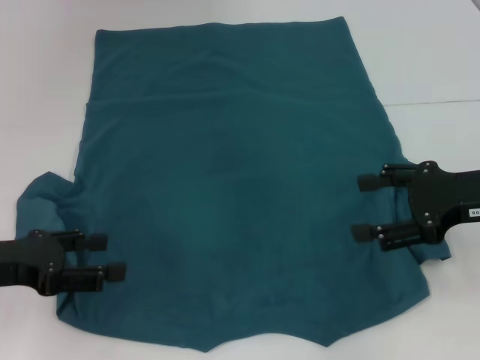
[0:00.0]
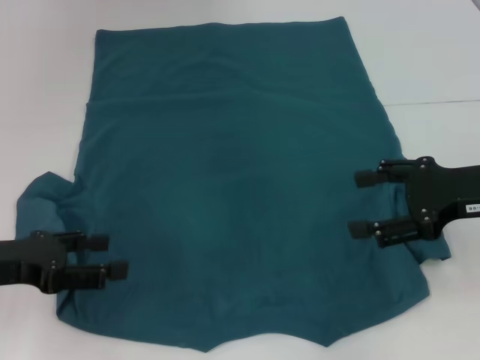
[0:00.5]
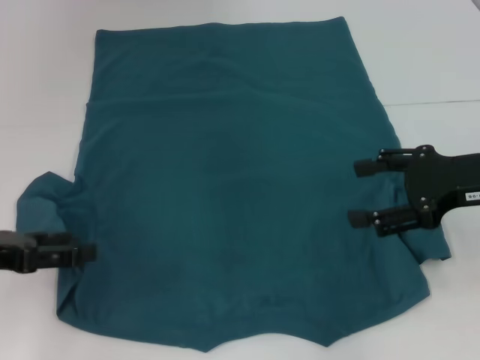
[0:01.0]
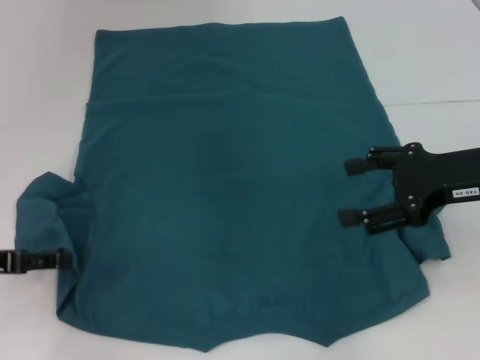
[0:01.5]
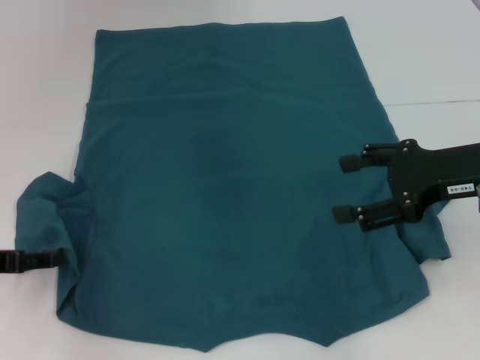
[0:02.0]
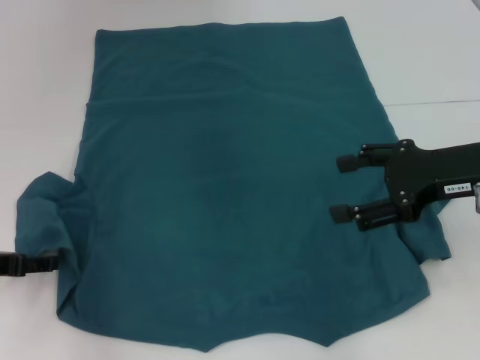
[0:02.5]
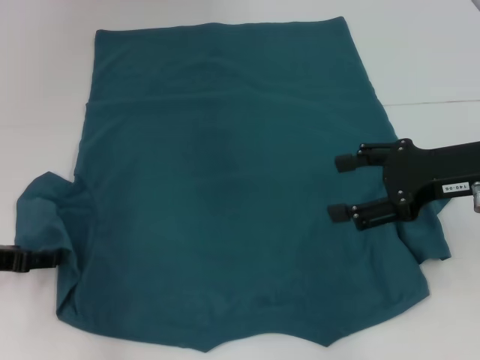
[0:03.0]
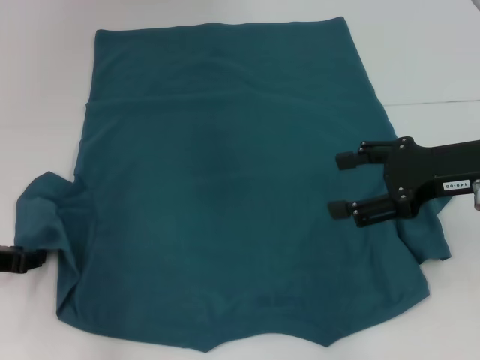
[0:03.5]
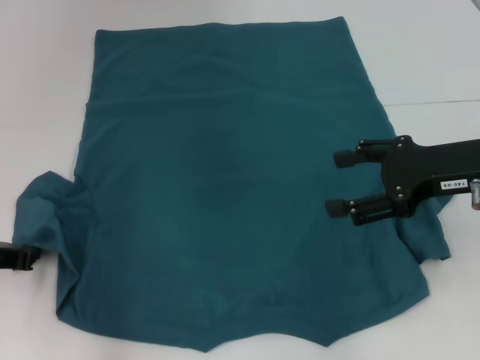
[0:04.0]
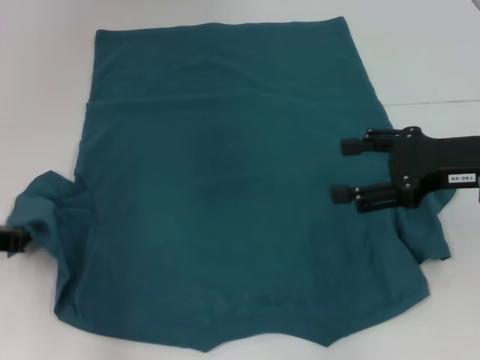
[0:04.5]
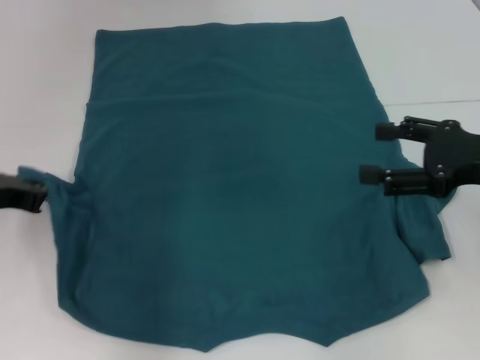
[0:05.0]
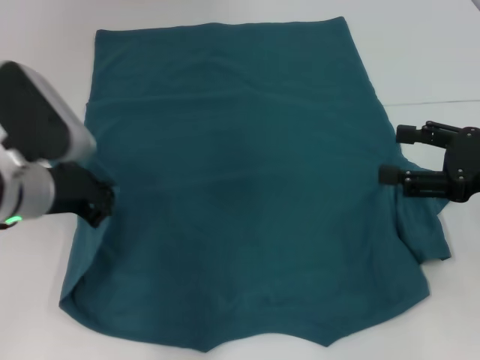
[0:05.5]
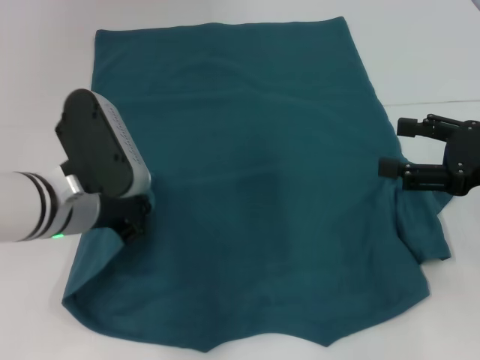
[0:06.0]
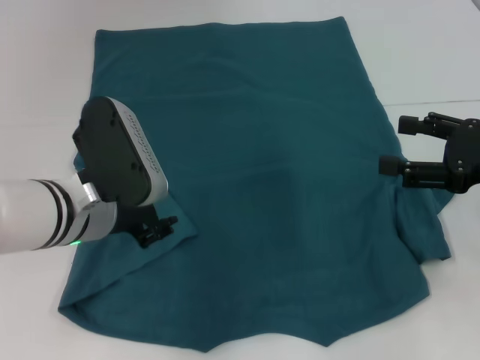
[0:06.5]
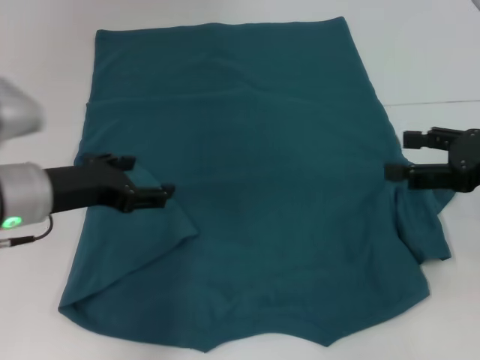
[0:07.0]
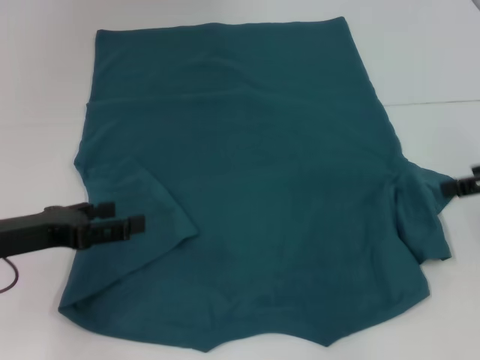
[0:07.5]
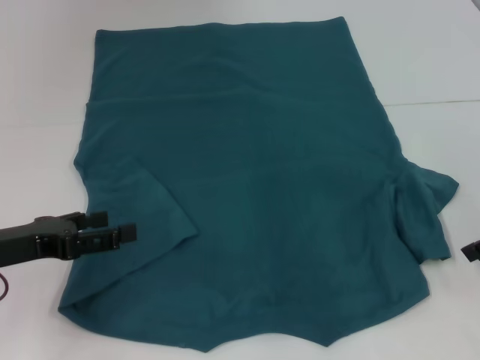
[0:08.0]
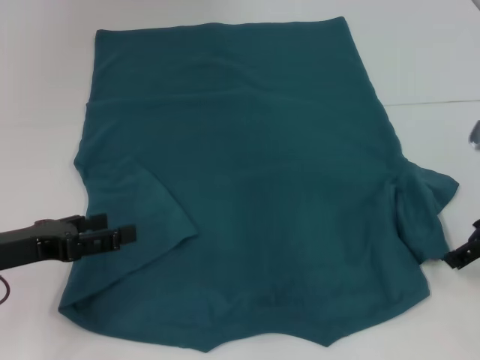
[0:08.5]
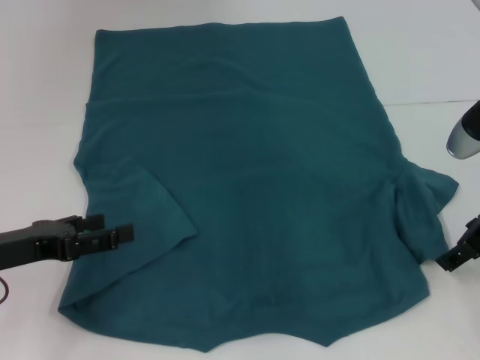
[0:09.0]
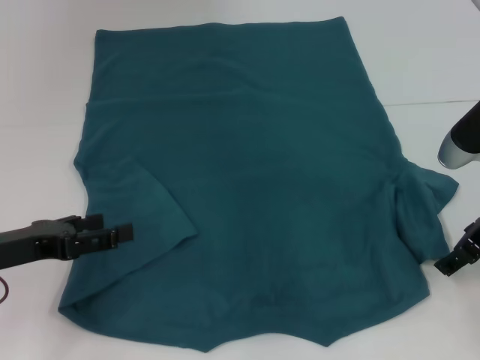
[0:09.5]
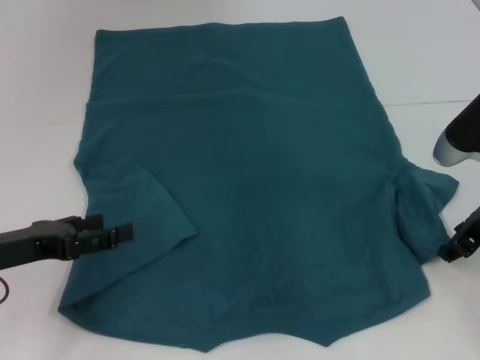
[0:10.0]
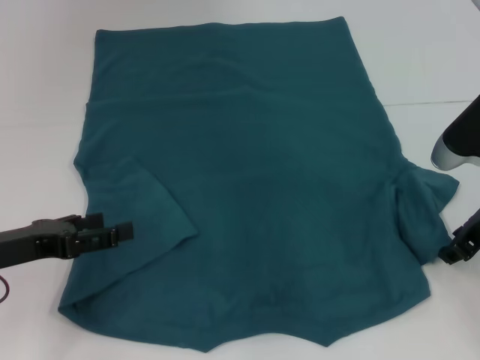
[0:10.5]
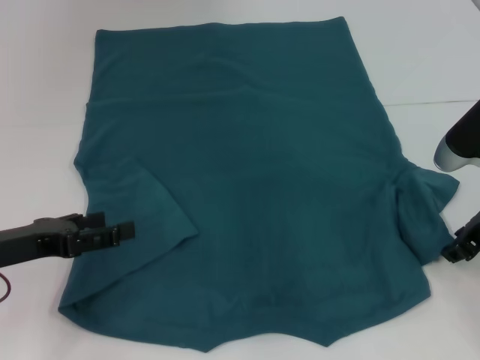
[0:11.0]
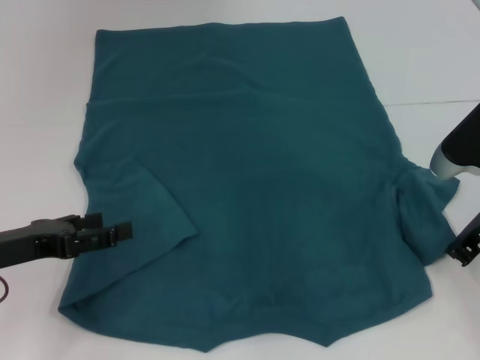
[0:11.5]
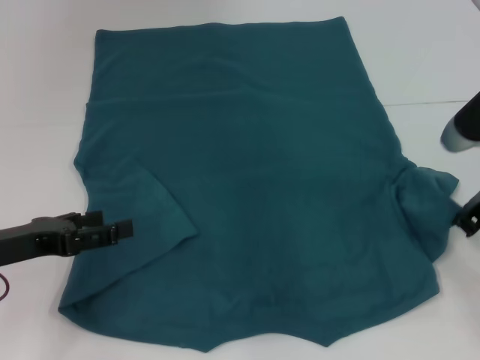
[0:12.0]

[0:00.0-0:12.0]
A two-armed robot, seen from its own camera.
Step, 0:00.0 to 0:06.5: Fold the bottom left sleeve with your left hand.
0:02.0 to 0:04.0: The left gripper closes.
0:04.0 to 0:06.0: The right gripper moves to the right, about 5 cm; the left gripper shifts roughly 15 cm to the right.
0:06.0 to 0:08.0: The left gripper goes about 15 cm to the left, and opens.
0:08.0 to 0:10.0: The right gripper is displaced to the left by about 5 cm.
0:10.0 to 0:12.0: The right gripper closes its fingers.

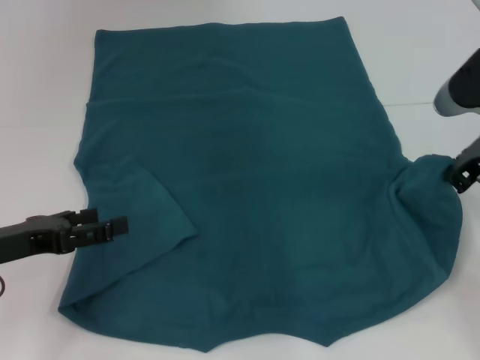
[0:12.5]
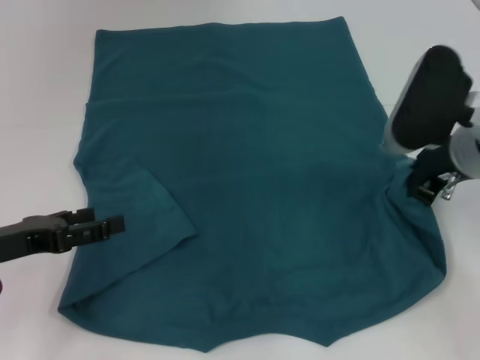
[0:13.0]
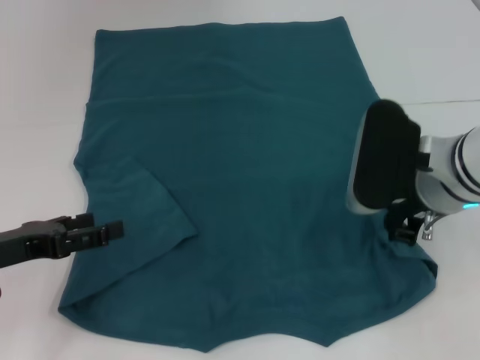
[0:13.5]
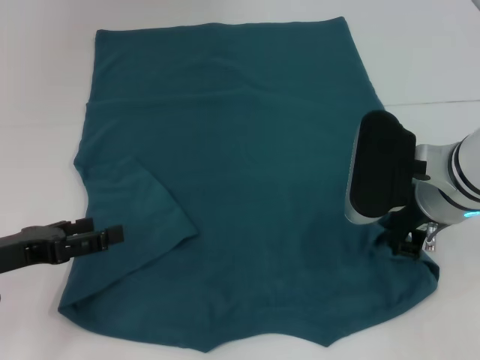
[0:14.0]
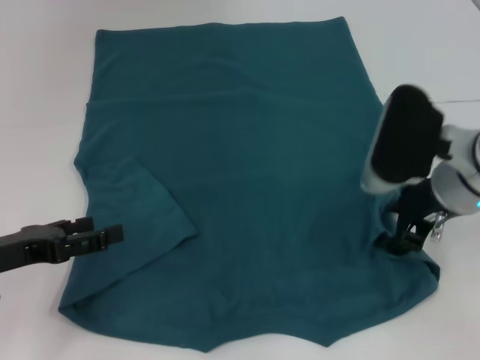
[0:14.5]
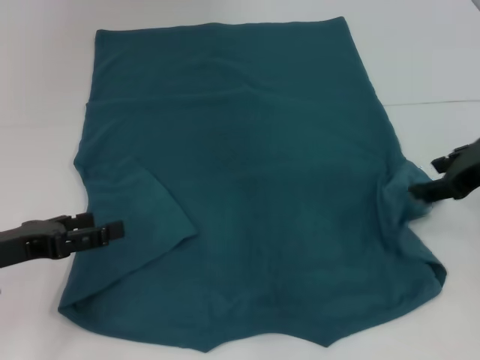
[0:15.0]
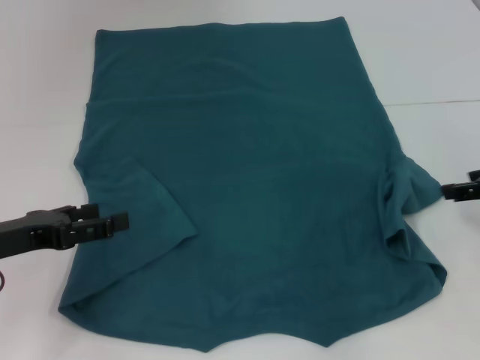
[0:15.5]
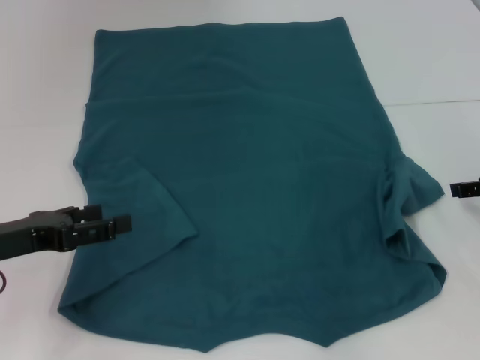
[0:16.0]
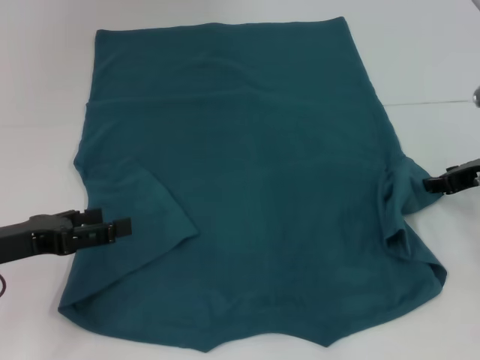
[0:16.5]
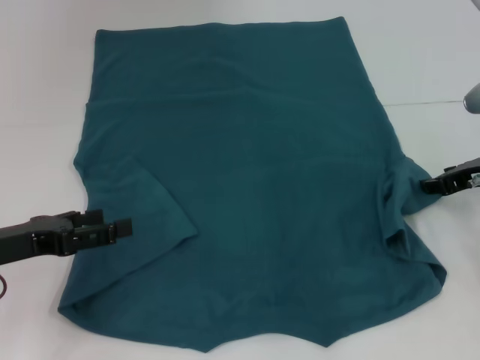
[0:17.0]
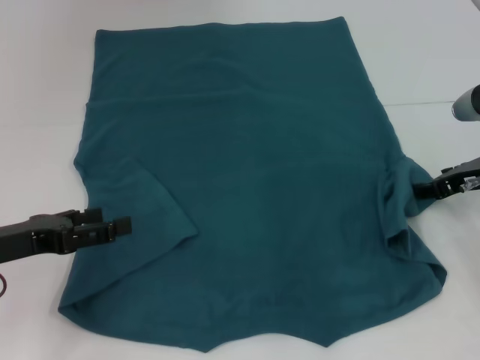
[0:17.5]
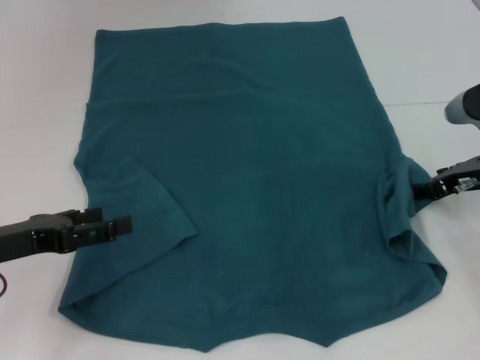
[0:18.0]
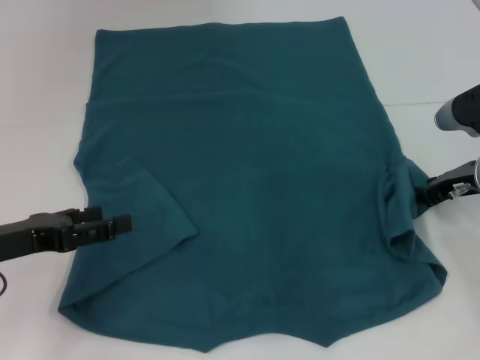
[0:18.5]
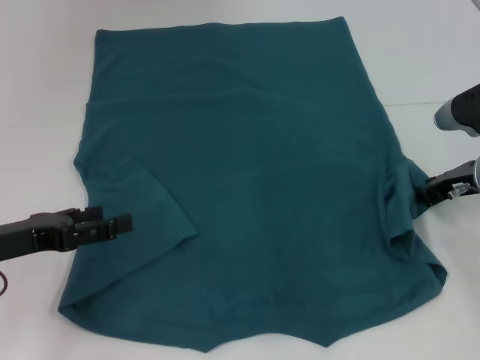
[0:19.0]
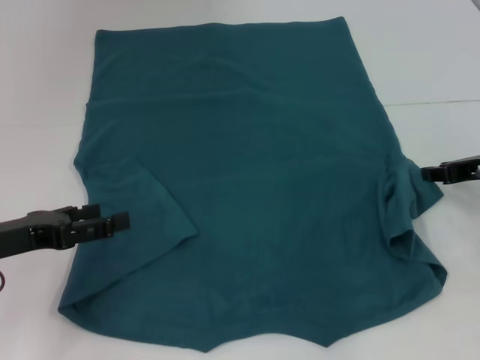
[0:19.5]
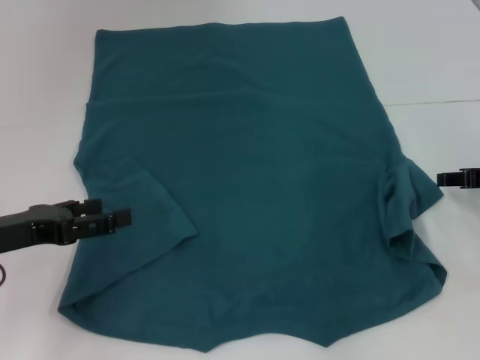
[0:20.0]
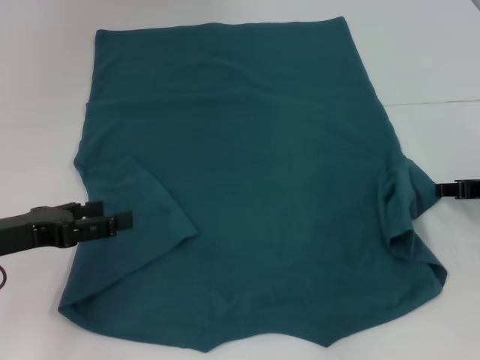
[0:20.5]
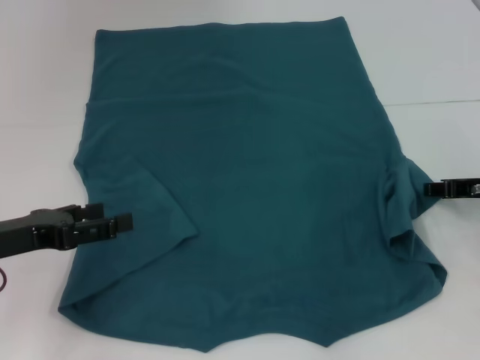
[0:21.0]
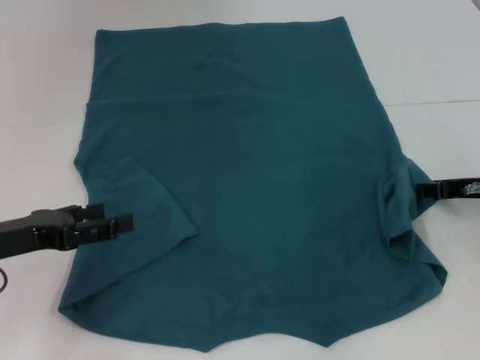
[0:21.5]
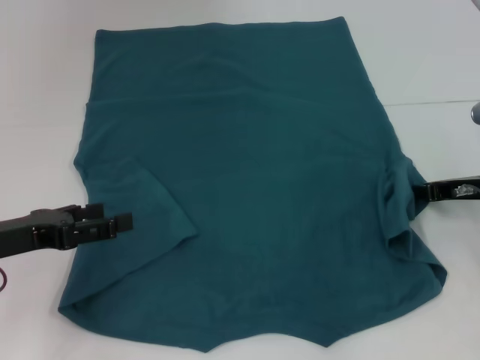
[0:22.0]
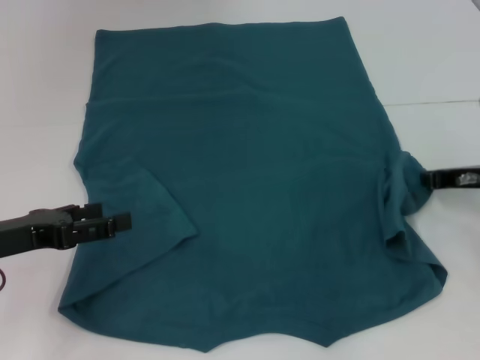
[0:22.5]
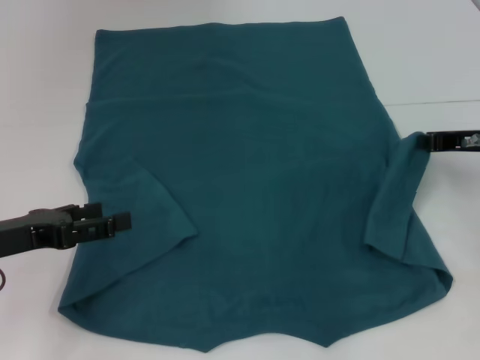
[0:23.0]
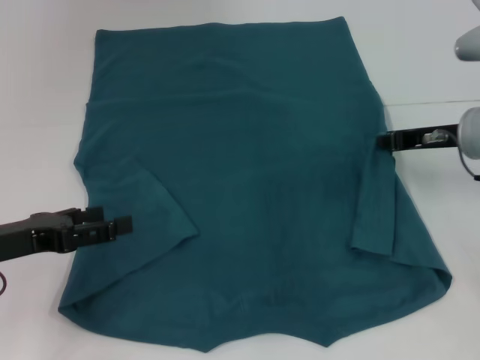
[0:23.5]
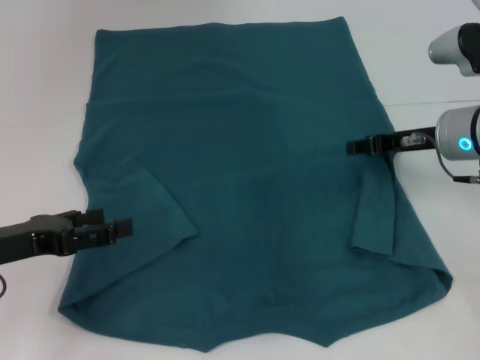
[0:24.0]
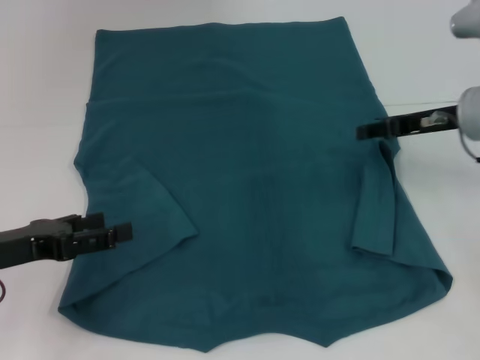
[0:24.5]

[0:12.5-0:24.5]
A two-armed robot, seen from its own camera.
0:12.5 to 0:14.5: The right gripper moves to the left, approximately 5 cm, and opens up.
0:14.5 to 0:16.5: The right gripper moves to the right, approximately 10 cm.
0:16.5 to 0:18.5: The grippers make only small movements.
0:18.5 to 0:20.5: The right gripper travels to the right by about 5 cm.
0:20.5 to 0:22.5: The right gripper closes.
0:22.5 to 0:24.5: The right gripper heads upward, covering approximately 5 cm, and opens up.

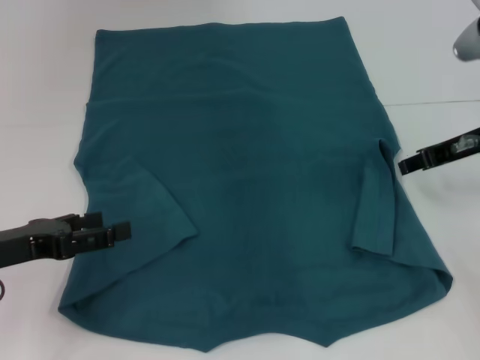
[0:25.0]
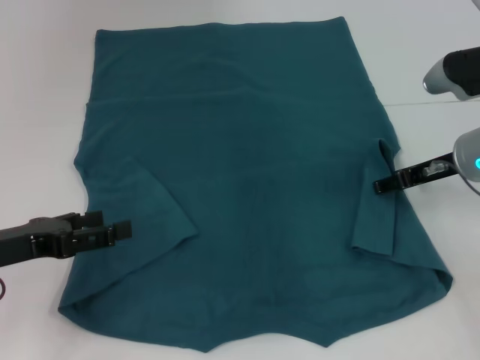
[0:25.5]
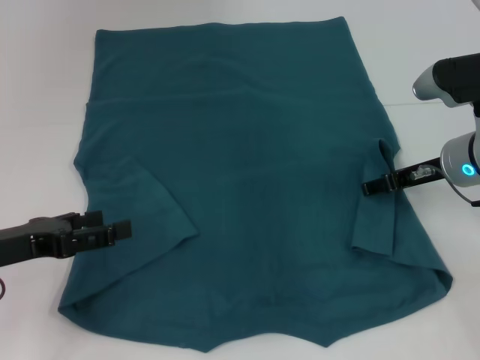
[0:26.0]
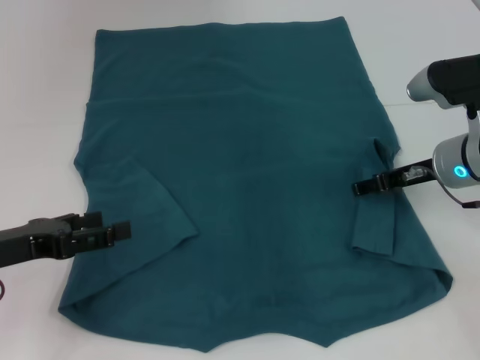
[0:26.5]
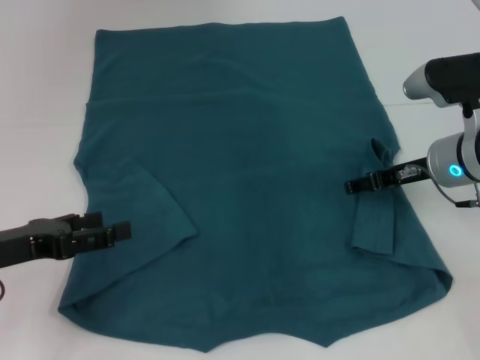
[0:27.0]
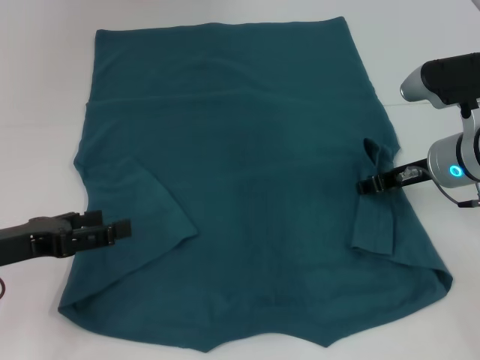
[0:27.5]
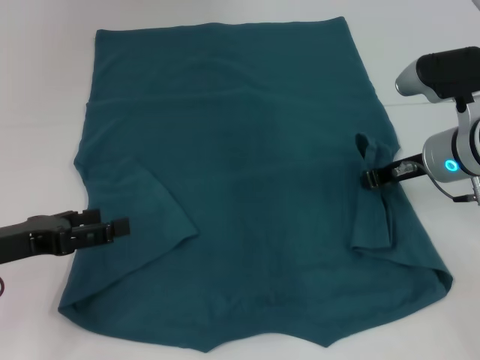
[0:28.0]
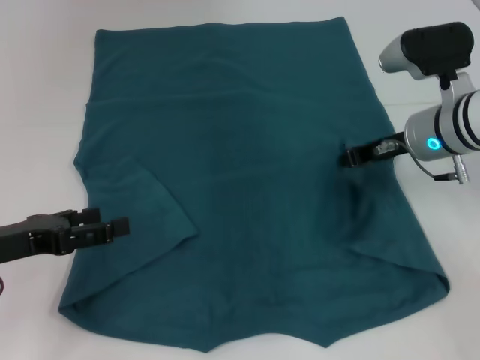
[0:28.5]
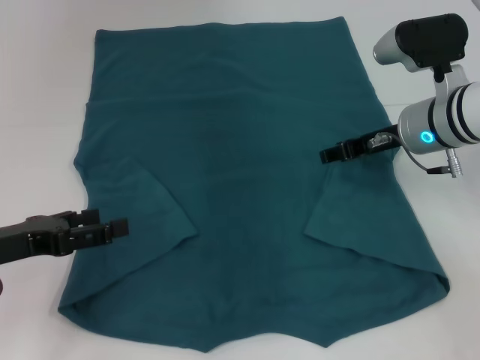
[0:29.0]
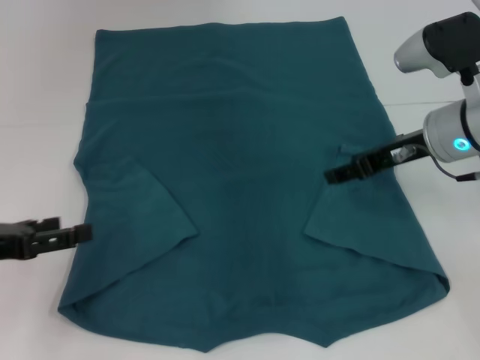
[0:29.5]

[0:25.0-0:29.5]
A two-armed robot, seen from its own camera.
Step, 0:25.0 to 0:29.0: Fold the bottom right sleeve to the right.
0:25.0 to 0:27.0: The right gripper is displaced downward by approximately 5 cm.
0:27.0 to 0:29.5: The right gripper closes, then reopens.
